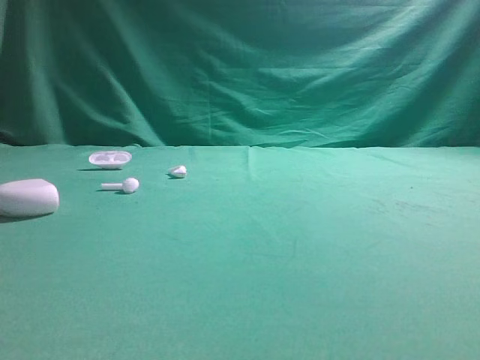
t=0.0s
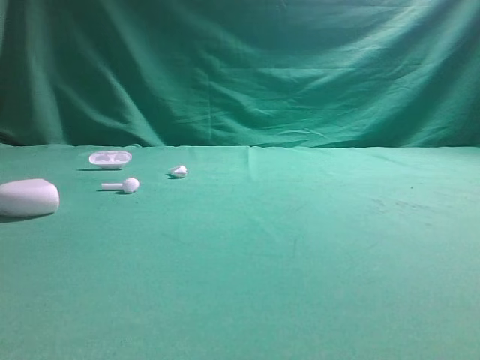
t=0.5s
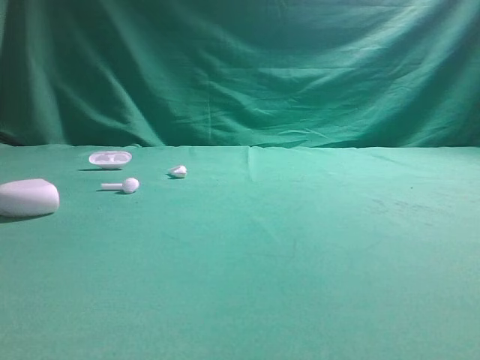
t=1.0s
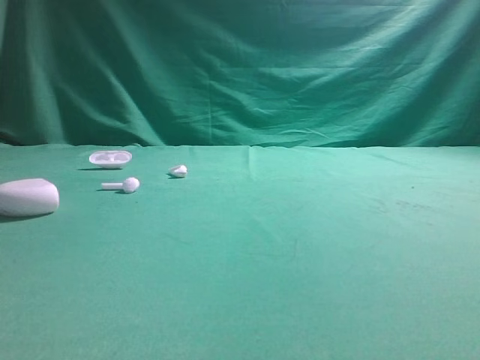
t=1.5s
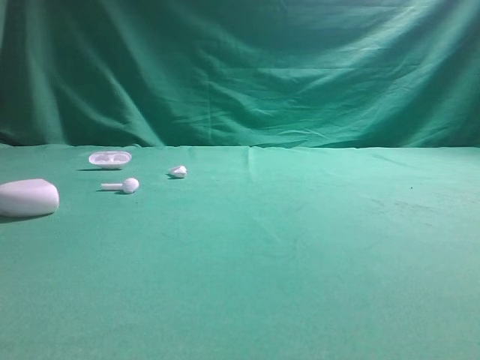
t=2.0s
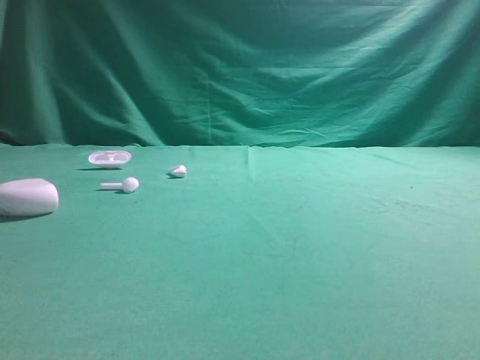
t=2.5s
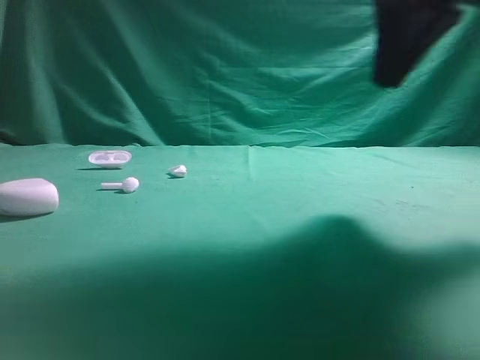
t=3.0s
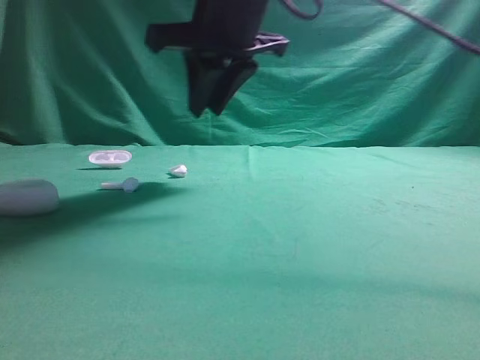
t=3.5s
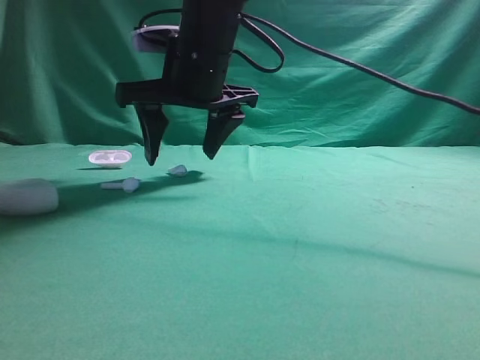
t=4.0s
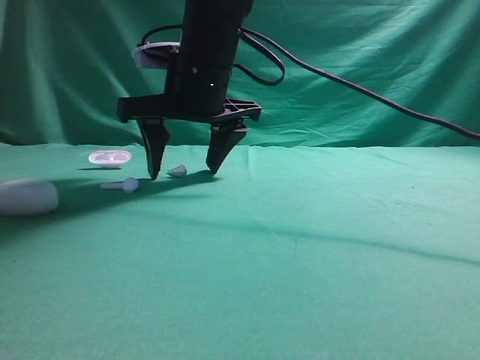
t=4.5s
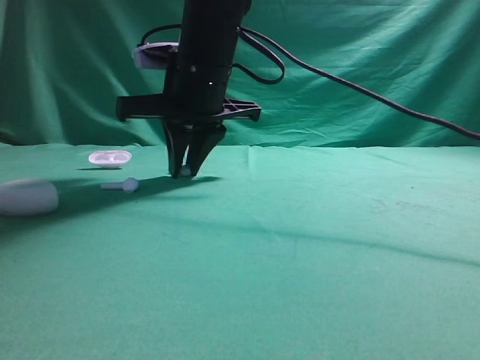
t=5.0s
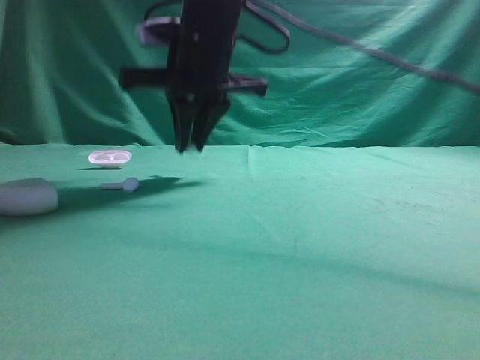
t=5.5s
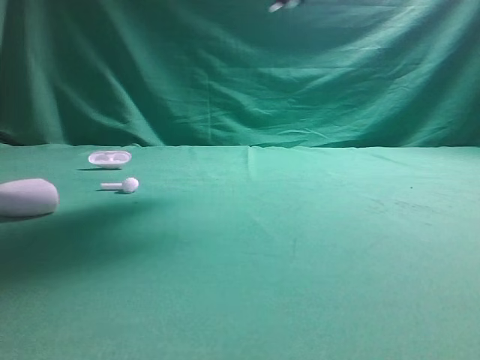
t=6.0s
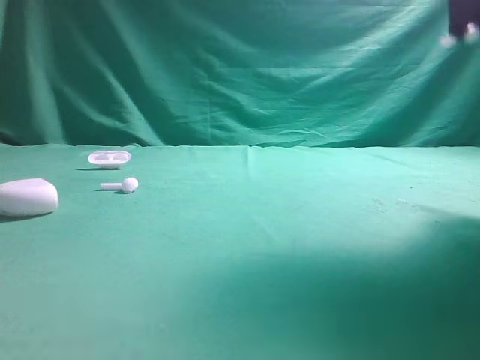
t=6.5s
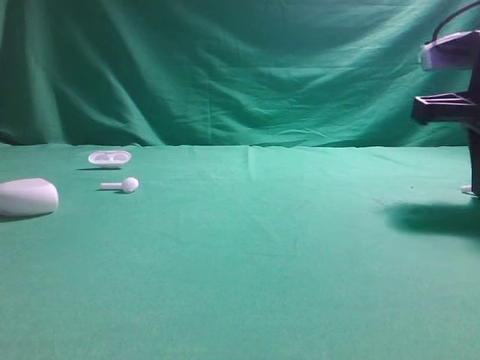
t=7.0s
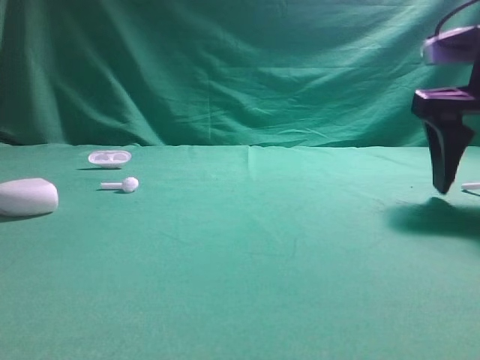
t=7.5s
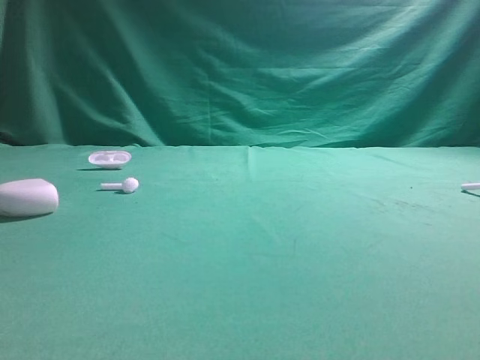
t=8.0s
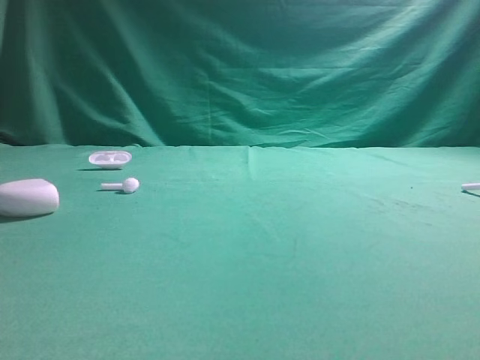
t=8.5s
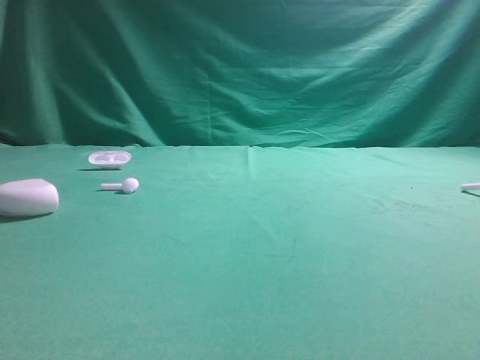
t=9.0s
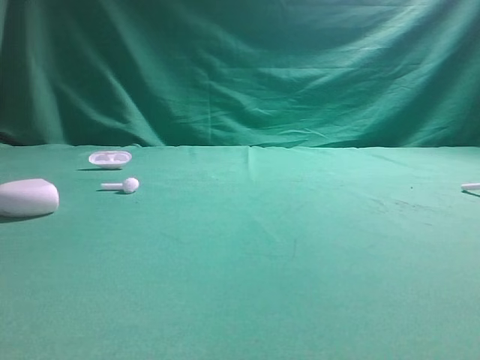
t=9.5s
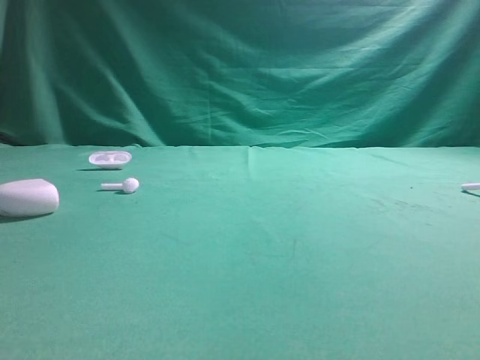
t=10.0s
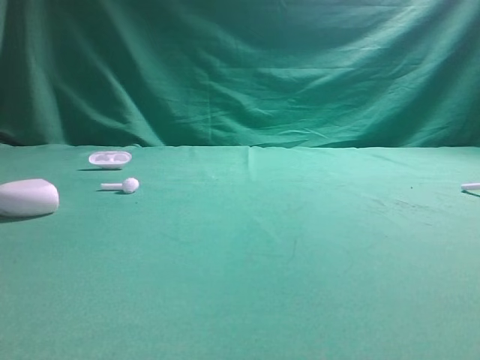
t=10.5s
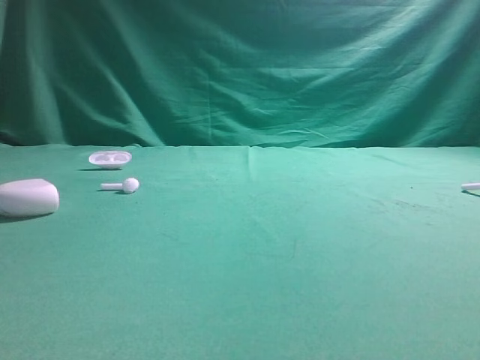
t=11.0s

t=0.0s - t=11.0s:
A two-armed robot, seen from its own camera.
Step, t=0.0s - t=5.5s: Grasp the Bluetooth earbud.
Step, t=6.0s - t=7.5s: Place bluetooth earbud on the right side of the table.
